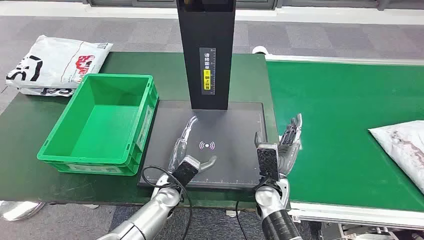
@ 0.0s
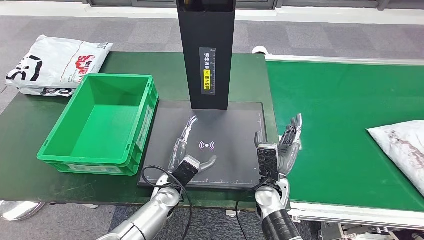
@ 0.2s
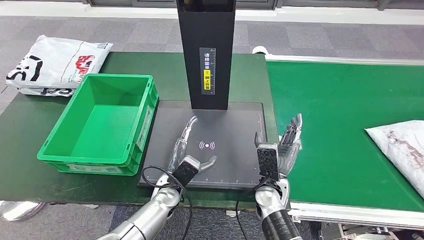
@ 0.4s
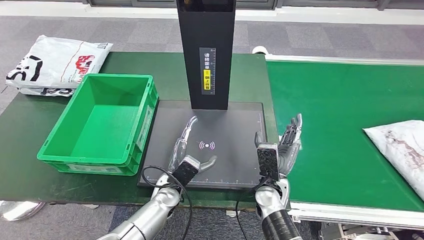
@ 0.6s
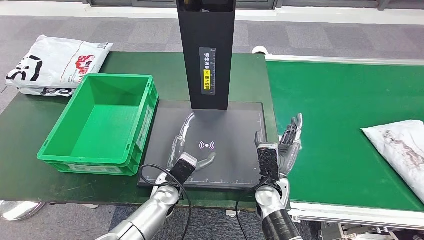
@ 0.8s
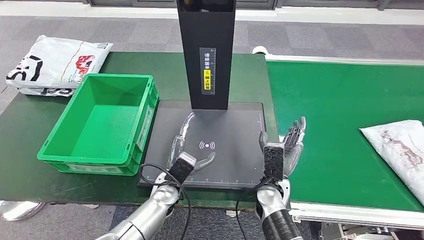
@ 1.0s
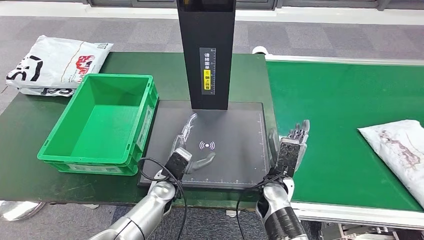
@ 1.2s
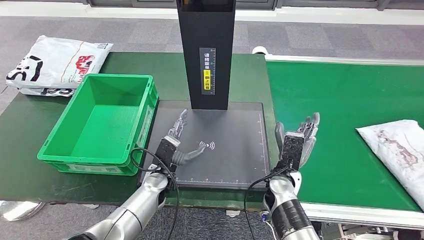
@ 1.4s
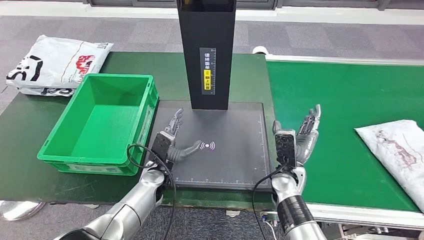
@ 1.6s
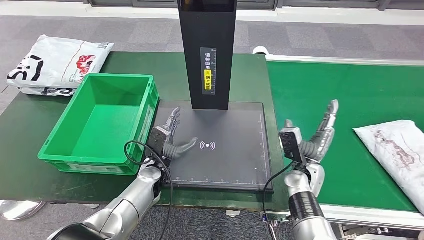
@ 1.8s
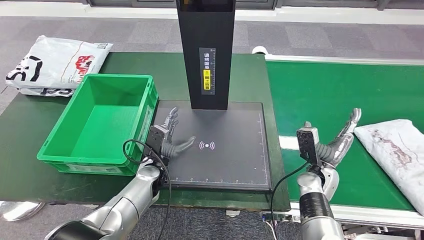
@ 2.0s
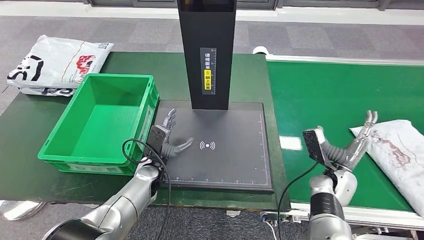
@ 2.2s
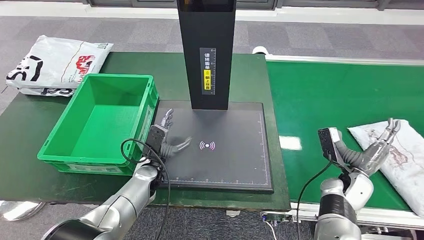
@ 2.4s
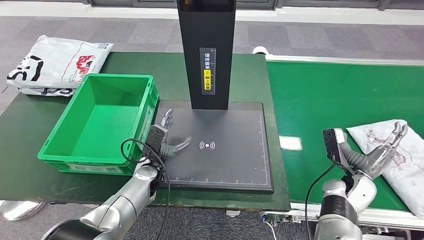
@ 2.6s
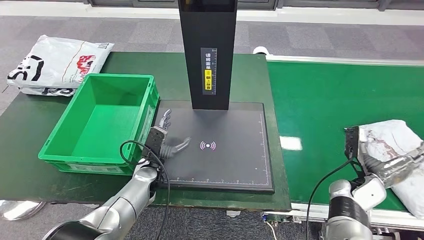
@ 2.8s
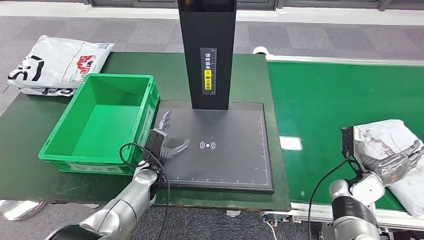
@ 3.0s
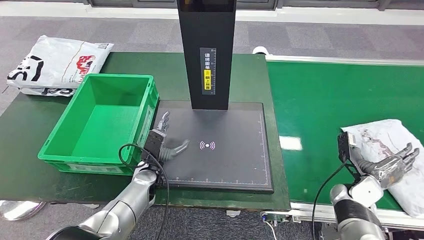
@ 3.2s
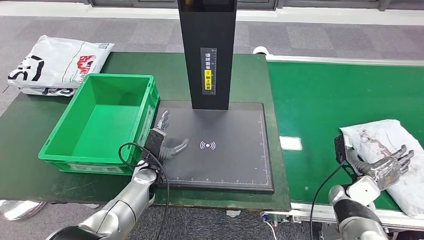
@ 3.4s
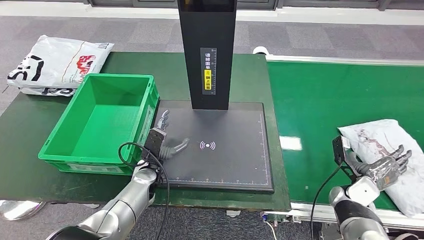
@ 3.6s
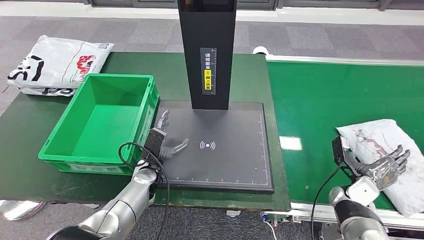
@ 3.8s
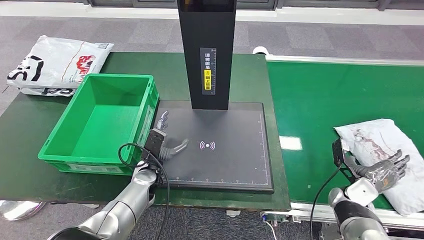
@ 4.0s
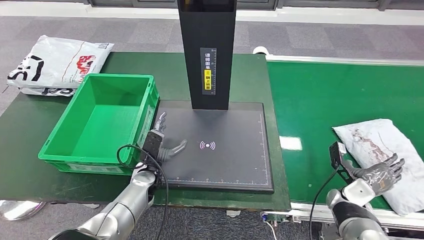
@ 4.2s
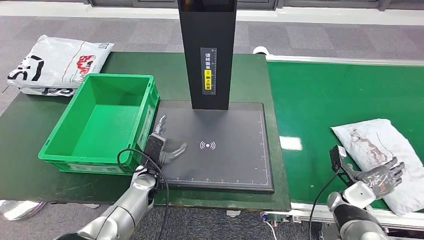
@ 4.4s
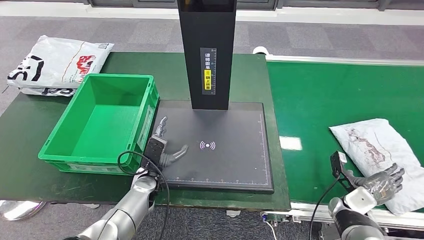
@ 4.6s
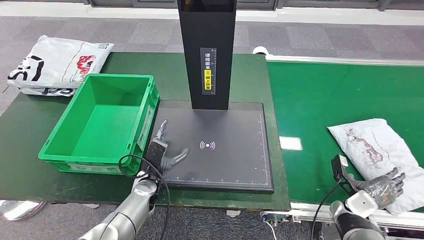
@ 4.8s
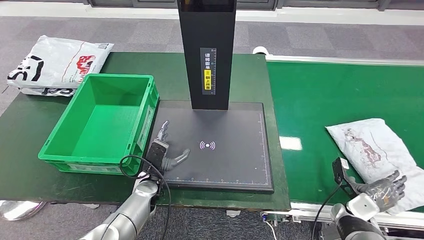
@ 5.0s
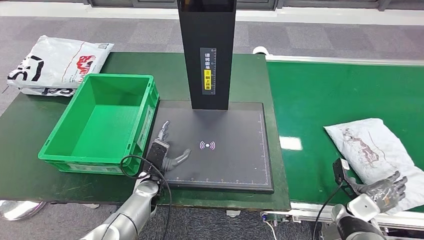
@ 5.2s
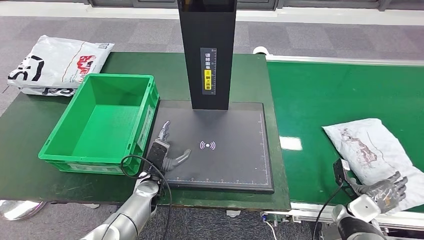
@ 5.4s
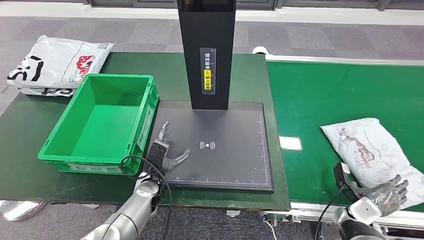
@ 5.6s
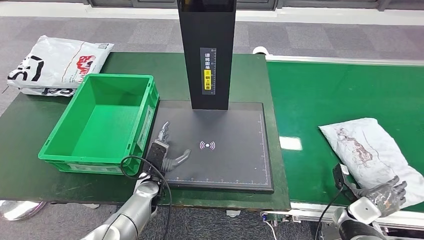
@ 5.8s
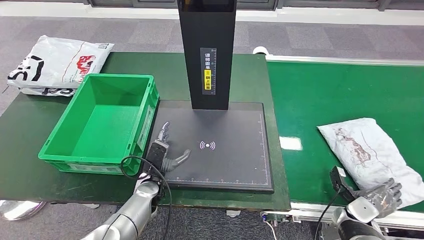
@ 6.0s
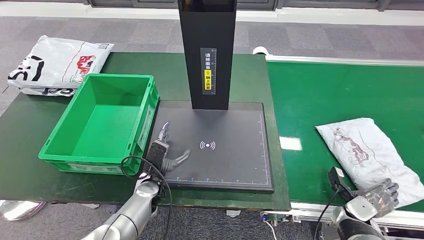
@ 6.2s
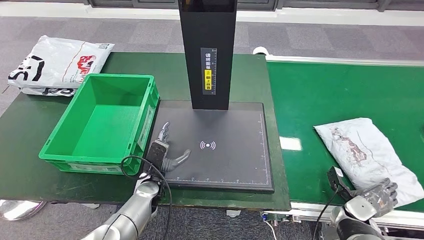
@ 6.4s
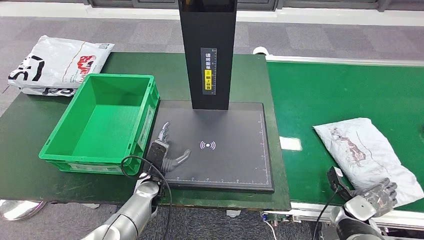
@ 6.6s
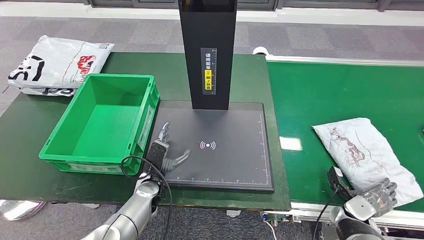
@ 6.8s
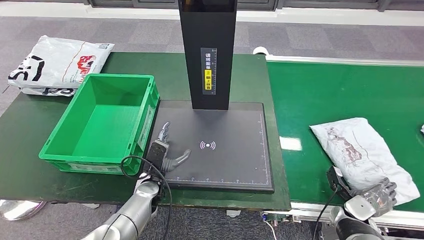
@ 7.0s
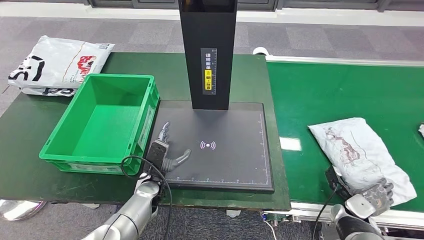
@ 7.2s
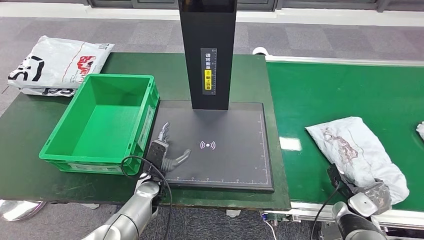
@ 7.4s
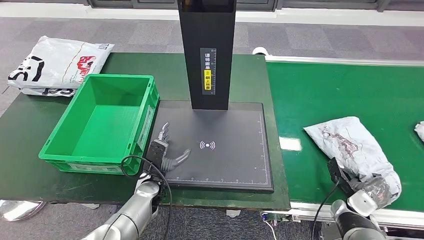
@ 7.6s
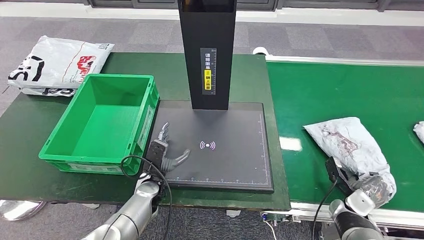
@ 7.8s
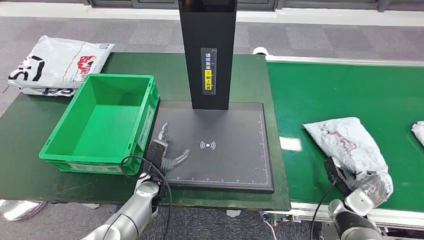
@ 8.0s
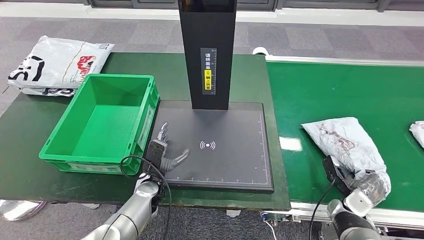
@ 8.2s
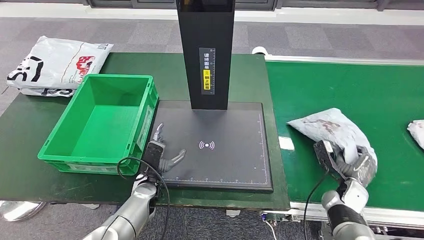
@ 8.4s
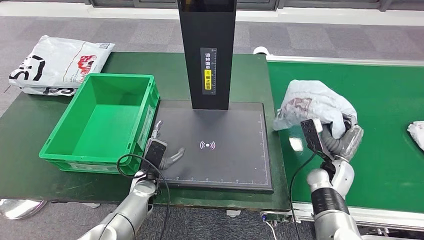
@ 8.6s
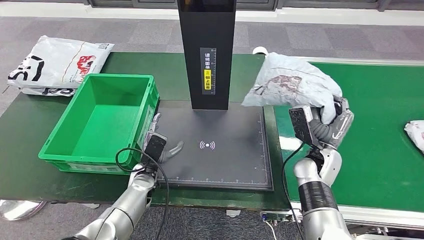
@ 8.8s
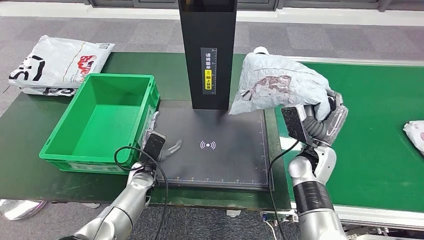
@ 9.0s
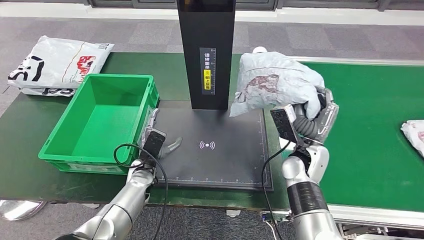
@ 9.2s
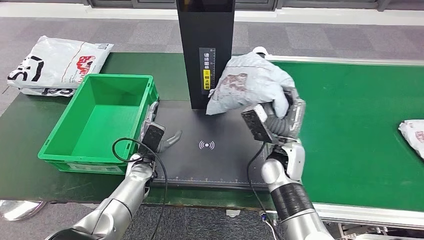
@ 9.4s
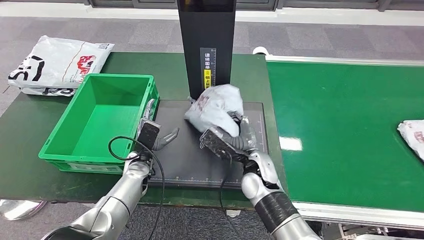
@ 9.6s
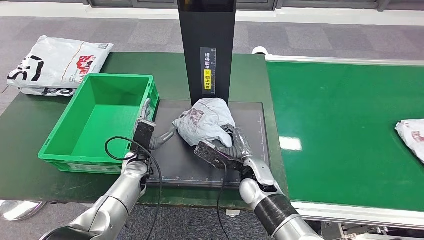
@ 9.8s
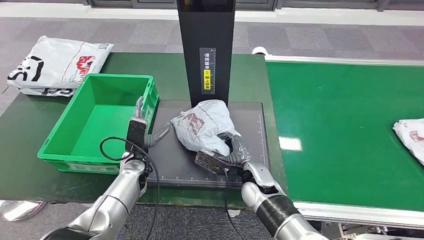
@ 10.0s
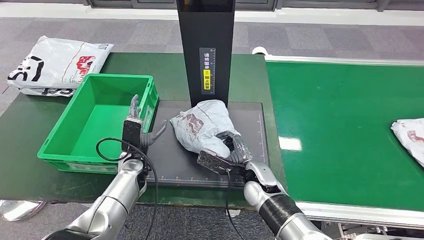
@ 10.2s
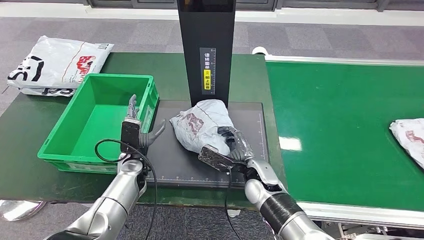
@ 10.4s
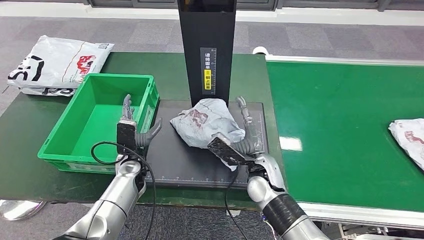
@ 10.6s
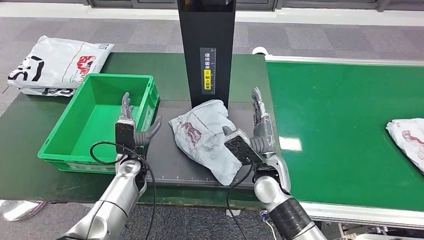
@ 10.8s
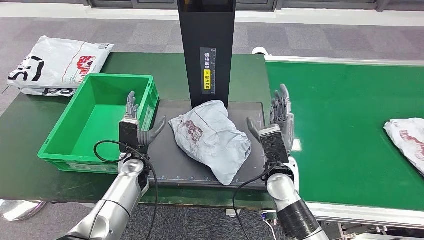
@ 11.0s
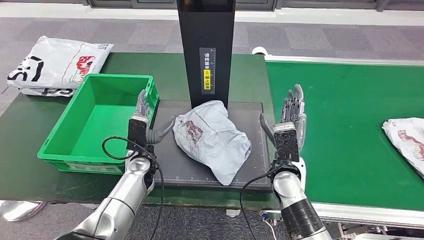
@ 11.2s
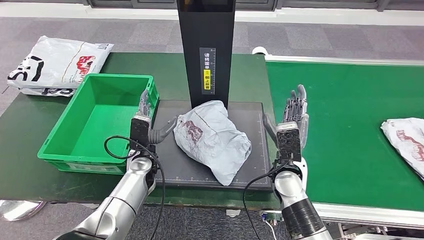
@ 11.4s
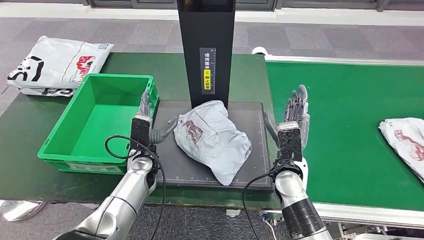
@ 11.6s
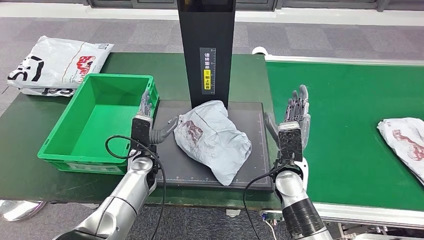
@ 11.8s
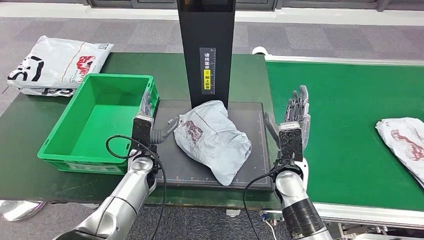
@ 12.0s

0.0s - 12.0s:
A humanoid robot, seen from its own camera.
Step, 0.0s - 8.2s: Take the parcel off the conveyor belt.
Step, 8.6s - 11.2s: Place the parcel onto the inbound machine.
1.6s - 3.0s: The right hand heads to the right, covering about 20 cm.
3.0s - 4.4s: The right hand moves about 5 cm.
4.4s - 6.0s: The right hand ends up approximately 5 cm from where it was.
6.0s - 7.6s: The hands make only small movements.
10.4s - 12.0s: The right hand heads to the right, covering about 5 cm.

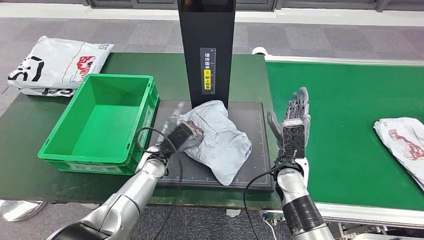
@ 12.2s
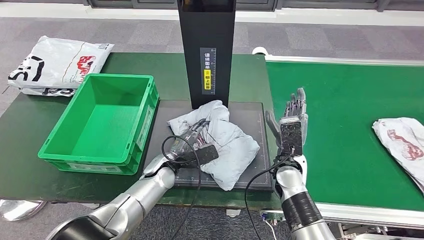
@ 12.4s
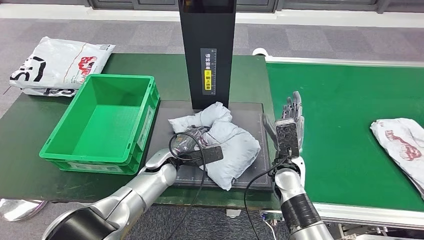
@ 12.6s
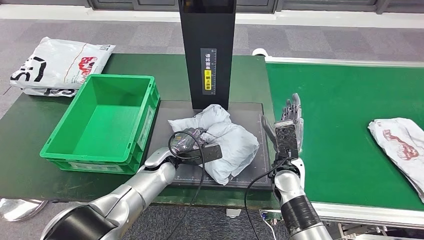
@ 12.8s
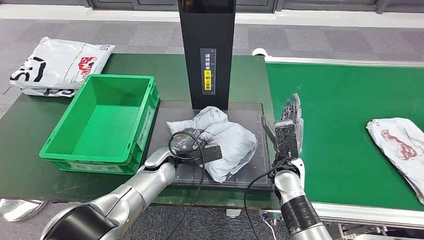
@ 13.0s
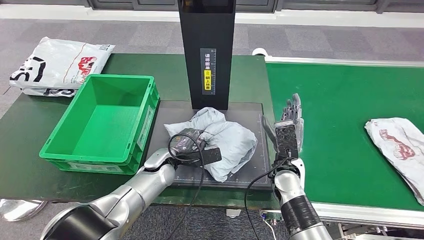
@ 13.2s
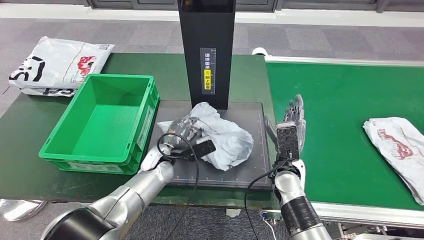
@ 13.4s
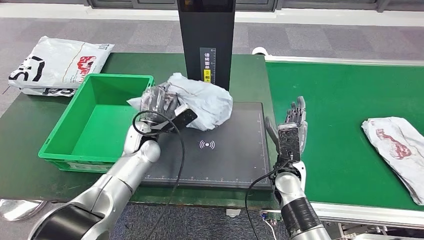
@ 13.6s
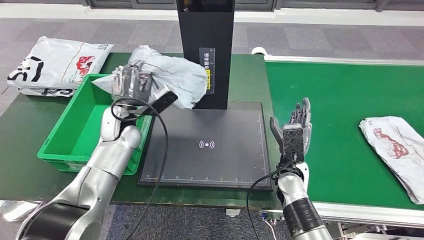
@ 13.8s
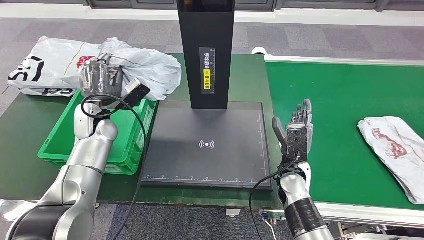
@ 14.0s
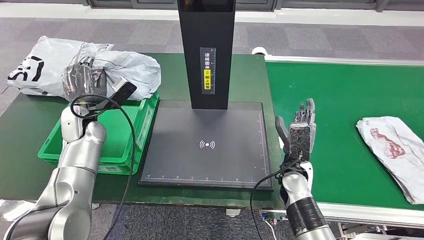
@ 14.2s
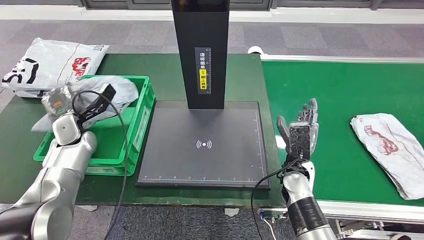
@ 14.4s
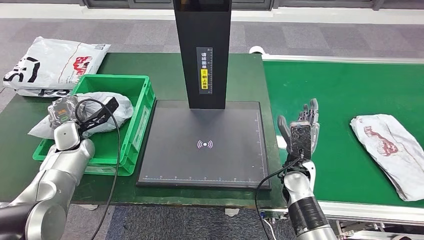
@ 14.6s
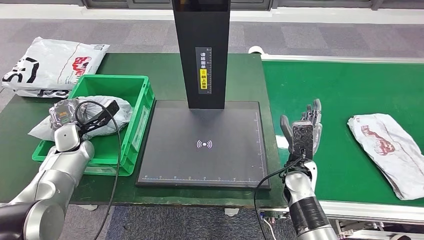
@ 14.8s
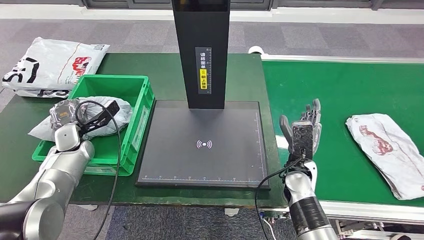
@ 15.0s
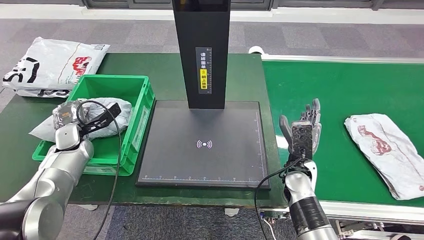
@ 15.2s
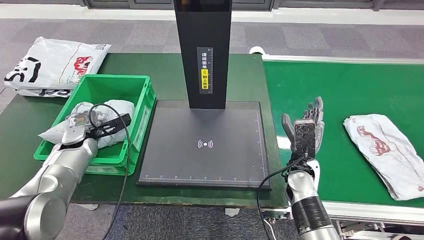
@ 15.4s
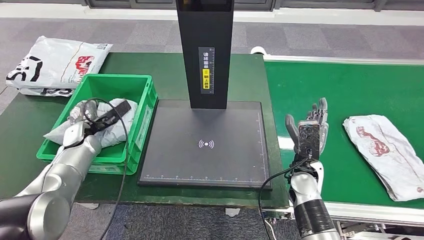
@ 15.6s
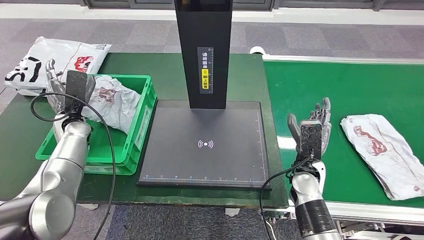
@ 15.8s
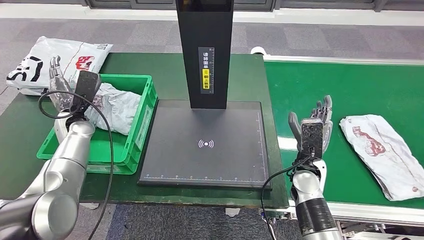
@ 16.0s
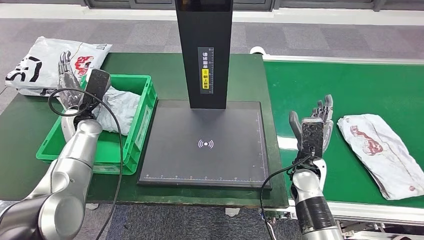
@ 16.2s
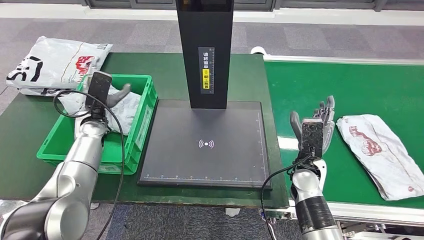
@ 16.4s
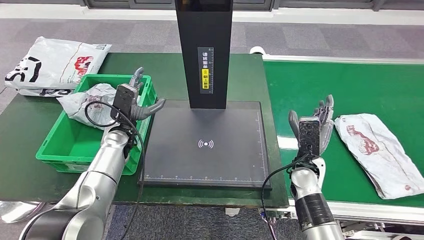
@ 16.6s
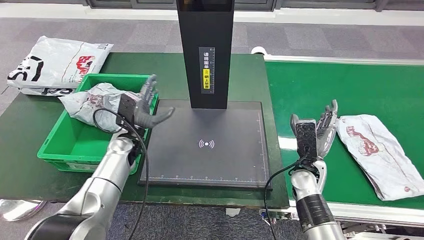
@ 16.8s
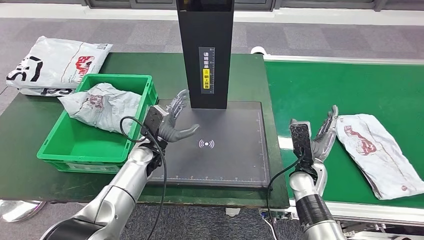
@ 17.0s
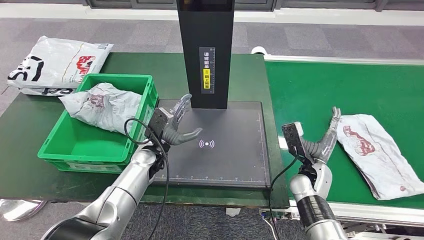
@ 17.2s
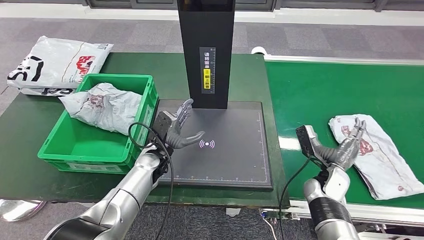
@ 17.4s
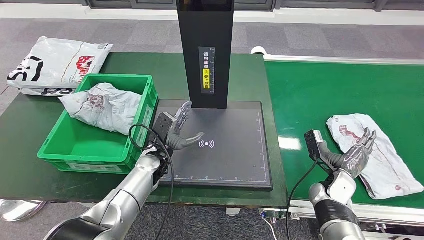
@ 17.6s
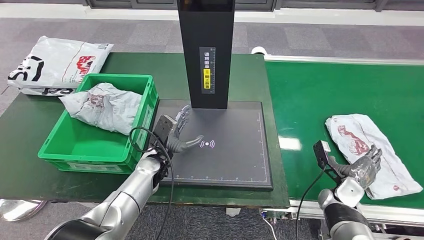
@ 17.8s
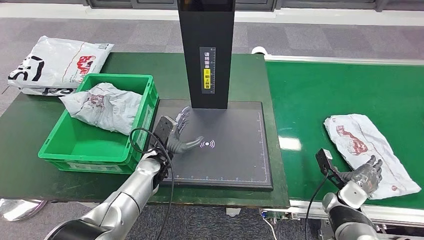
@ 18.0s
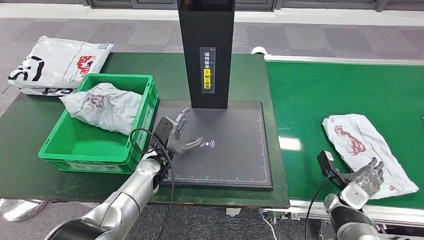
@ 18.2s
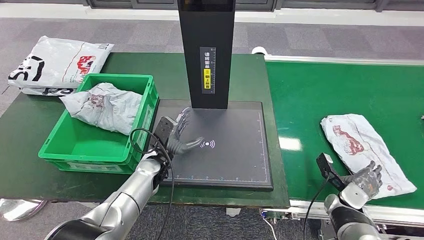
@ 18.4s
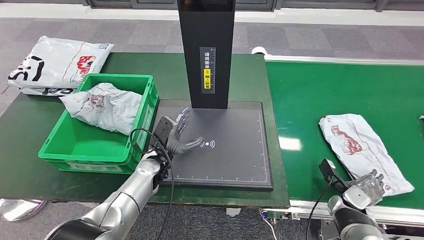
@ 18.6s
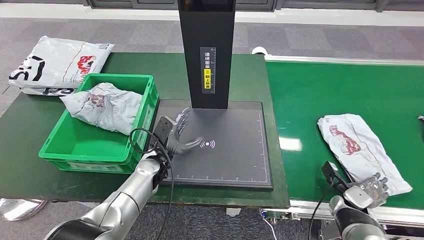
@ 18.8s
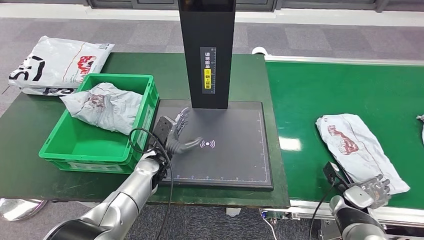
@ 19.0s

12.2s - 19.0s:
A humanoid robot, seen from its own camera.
Step, 12.2s - 13.6s: Pick up the parcel from the inbound machine.
Step, 13.8s - 16.4s: Put the parcel inside the courier box.
12.2s - 13.6s: The left hand heads upward, covering roughly 5 cm.
17.6s - 19.0s: The right hand travels to the right by some 5 cm.
